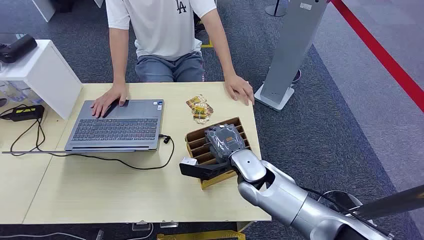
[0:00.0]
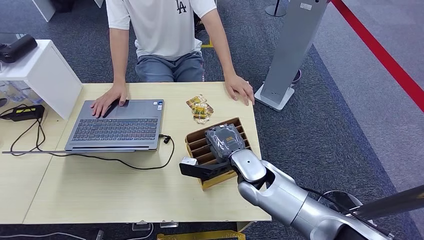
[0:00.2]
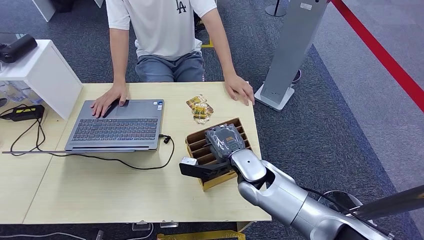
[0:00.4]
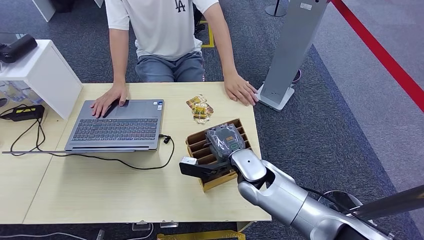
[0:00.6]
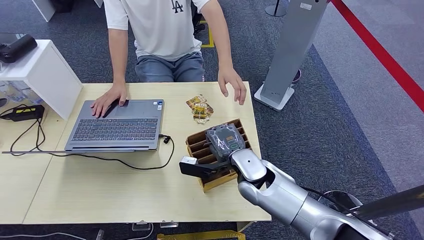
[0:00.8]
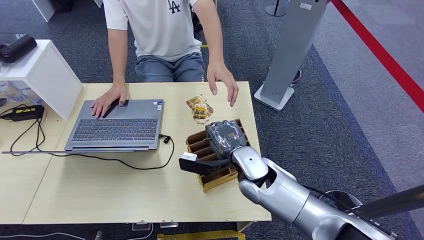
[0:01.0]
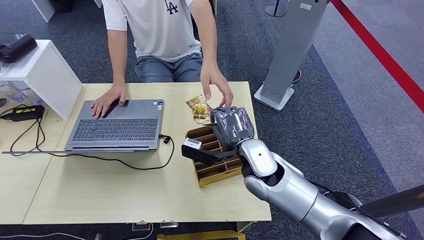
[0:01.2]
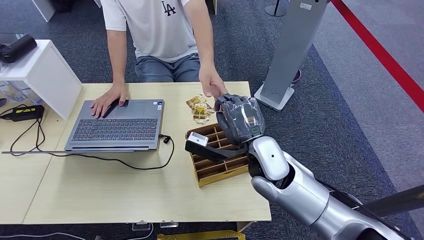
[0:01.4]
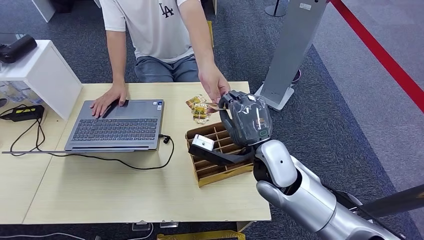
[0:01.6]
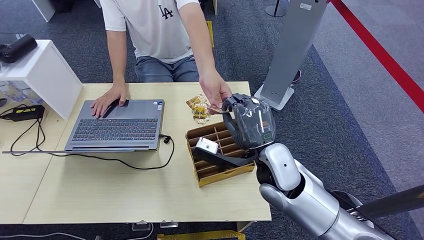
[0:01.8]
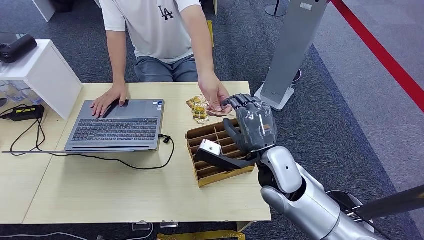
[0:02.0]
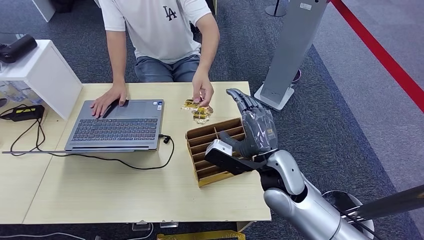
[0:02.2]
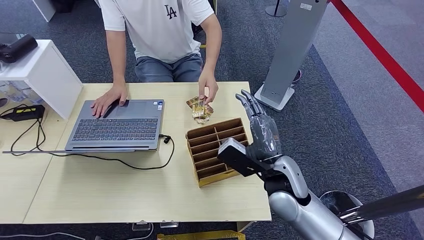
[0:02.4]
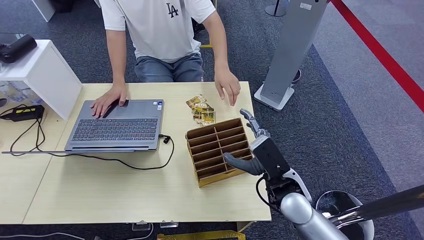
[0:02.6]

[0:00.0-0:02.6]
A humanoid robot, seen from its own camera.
Step, 0:00.0 to 0:01.2: Pick up the key card from the card box.
Step, 0:01.4 to 0:02.6: Hand the key card to the target.
0:01.2 to 0:02.6: The right hand is displaced to the right and backward by approximately 10 cm.
